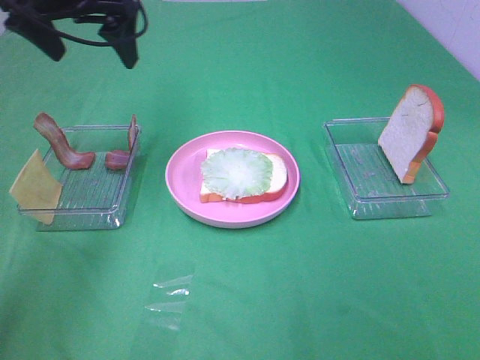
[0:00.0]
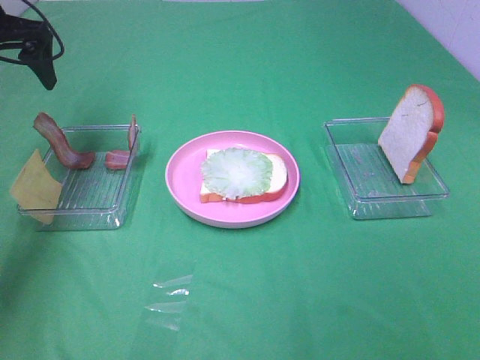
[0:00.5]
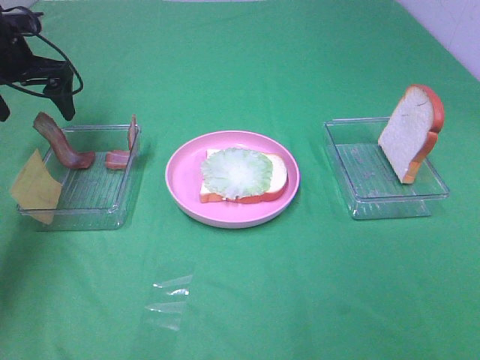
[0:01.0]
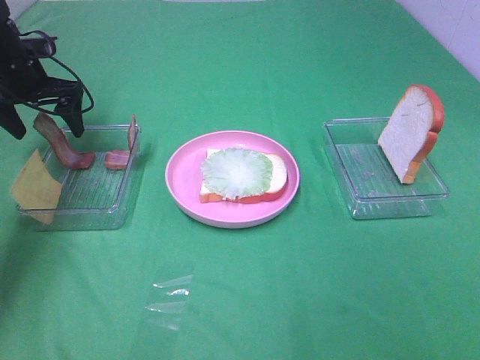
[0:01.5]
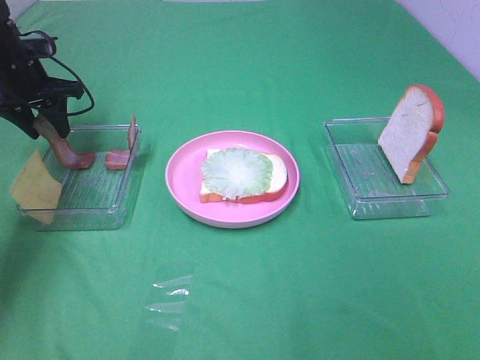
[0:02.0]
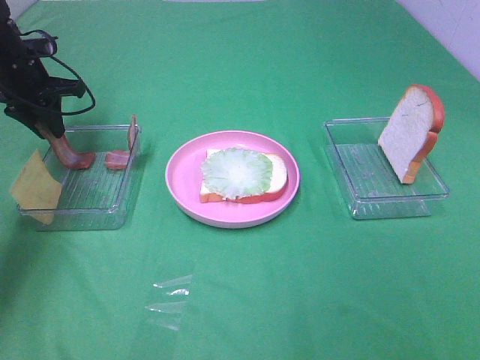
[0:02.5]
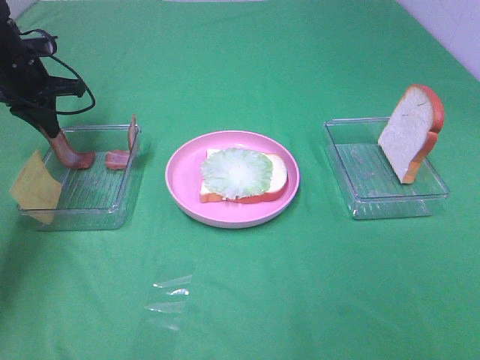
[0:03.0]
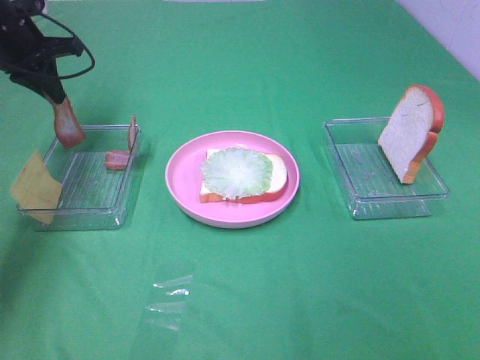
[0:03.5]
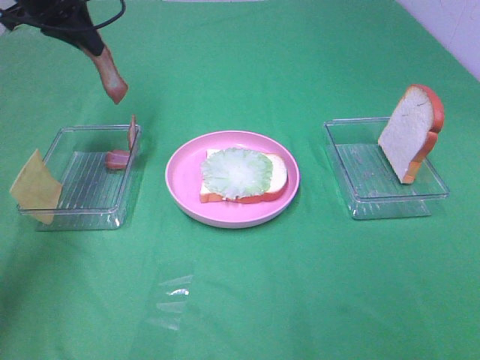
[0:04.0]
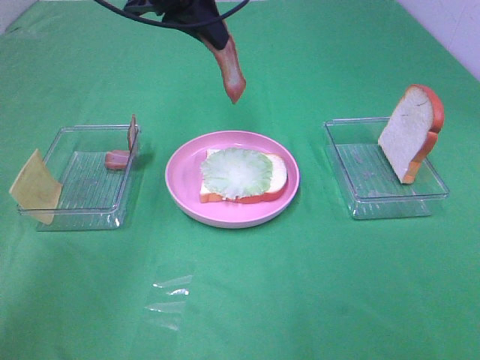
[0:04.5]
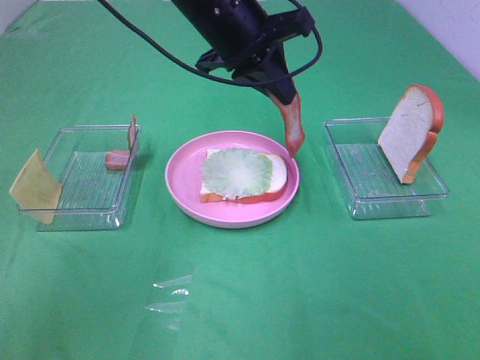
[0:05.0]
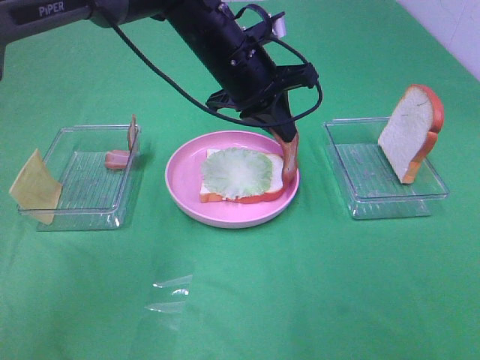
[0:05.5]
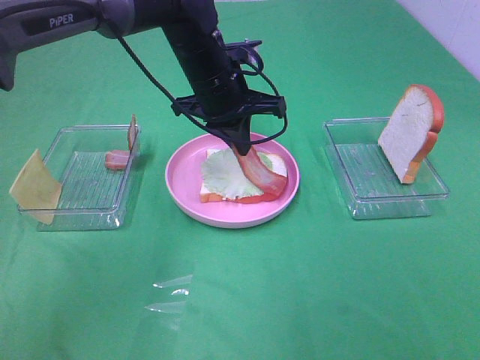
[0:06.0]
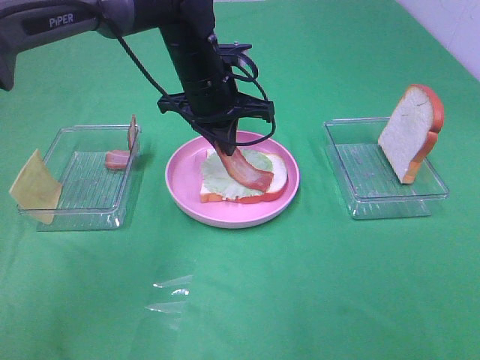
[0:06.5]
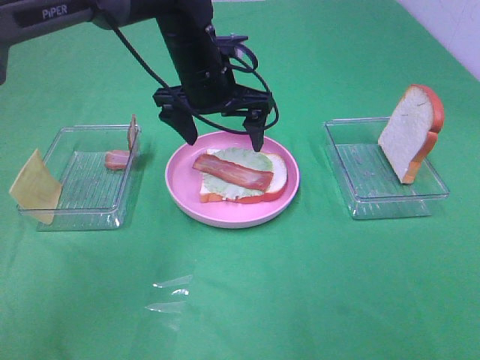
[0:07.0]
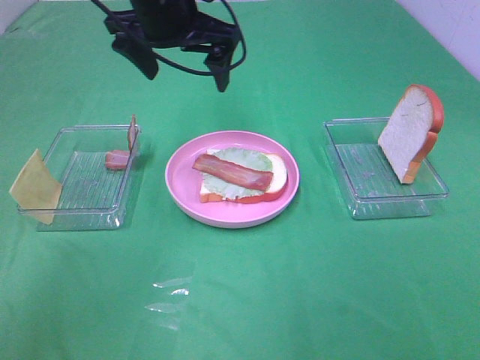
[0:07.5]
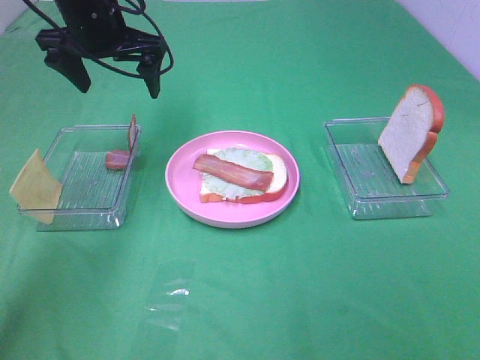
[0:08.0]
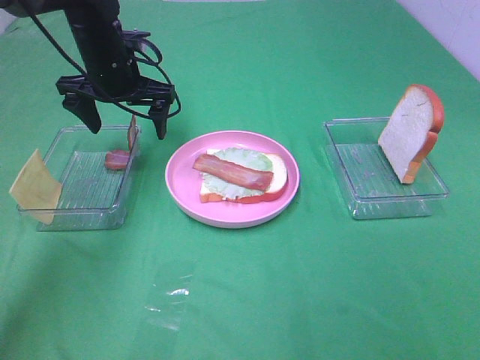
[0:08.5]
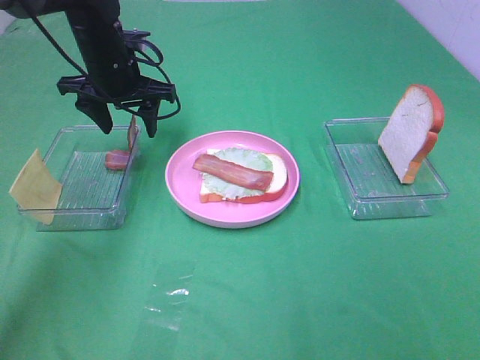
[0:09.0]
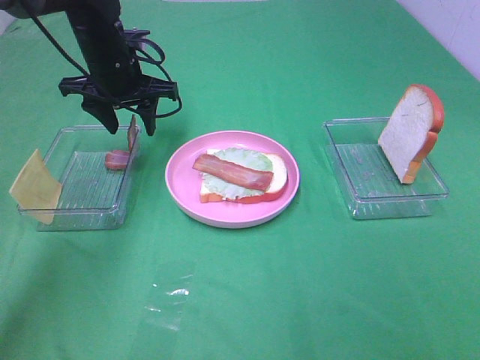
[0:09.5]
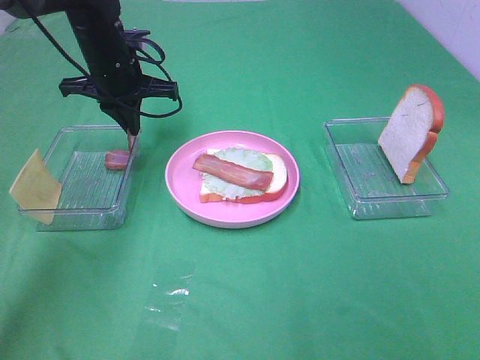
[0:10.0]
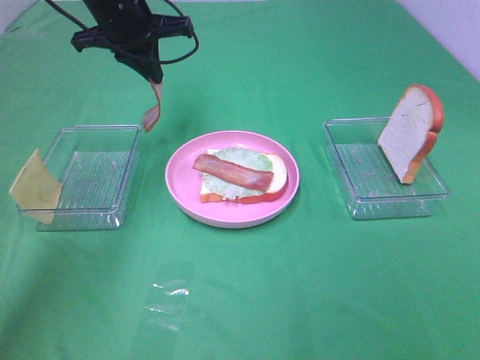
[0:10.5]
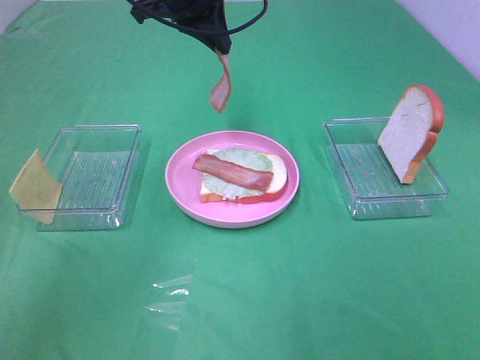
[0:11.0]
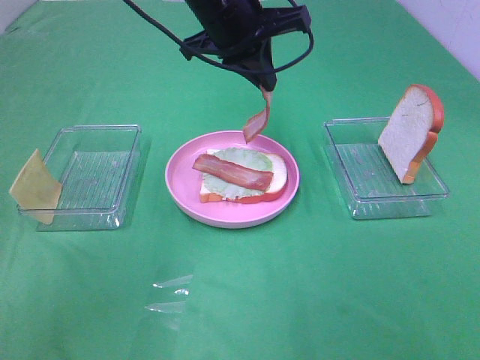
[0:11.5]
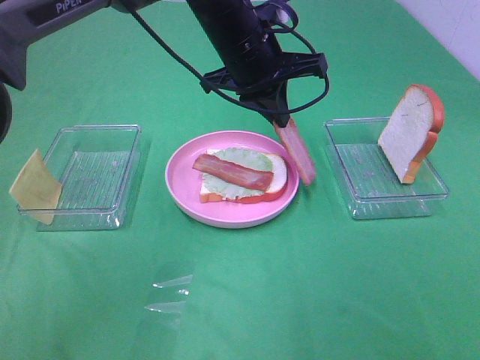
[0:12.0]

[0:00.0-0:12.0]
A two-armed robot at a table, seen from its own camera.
Task of the whole recording: Make sandwiches.
Step, 0:00.0 to 0:03.0: Left hand:grab the bacon.
Step, 0:03.5 to 0:06.5: Left hand:place bacon on lettuce slice.
Step, 0:07.0 to 0:10.0: Left hand:grab the bacon.
0:00.0 to 0:02.0: The left gripper is displaced downward, to the left and forward by some 20 cm, and closes.
0:02.0 to 0:04.0: The left gripper shifts roughly 15 cm upward and to the right, and closes.
0:04.0 to 0:06.0: The left gripper travels to the right and downward by approximately 25 cm.
0:06.0 to 0:08.0: The left gripper goes approximately 15 cm to the left and upward, and opens.
0:08.0 to 0:10.0: The left gripper is displaced downward by about 5 cm, and closes up.
0:10.0 to 0:12.0: The left gripper goes roughly 15 cm to the right.

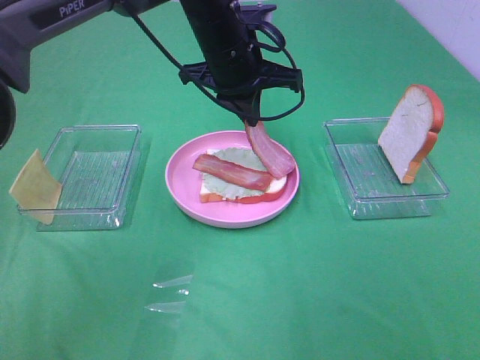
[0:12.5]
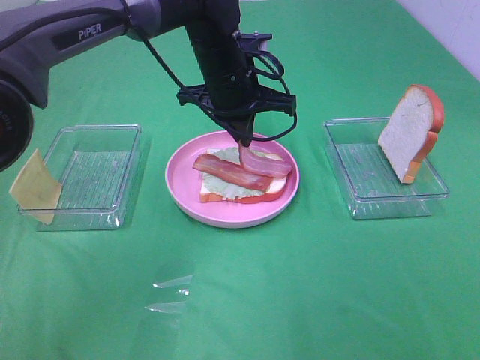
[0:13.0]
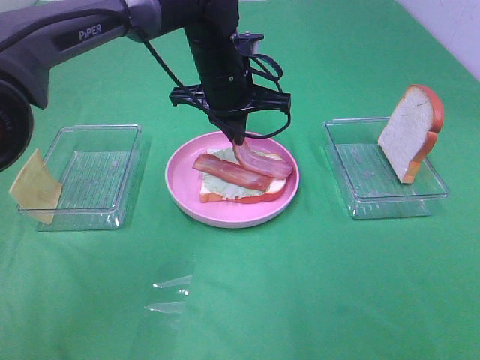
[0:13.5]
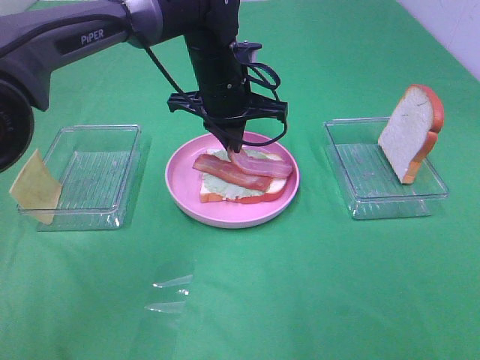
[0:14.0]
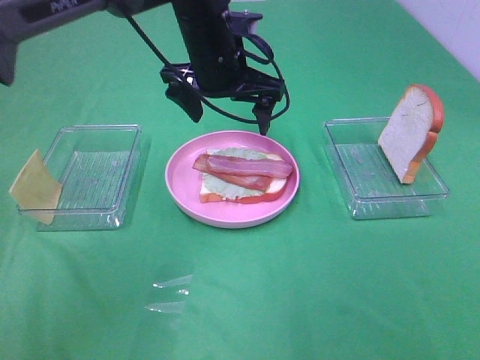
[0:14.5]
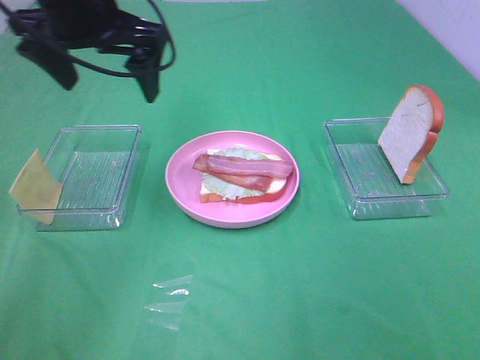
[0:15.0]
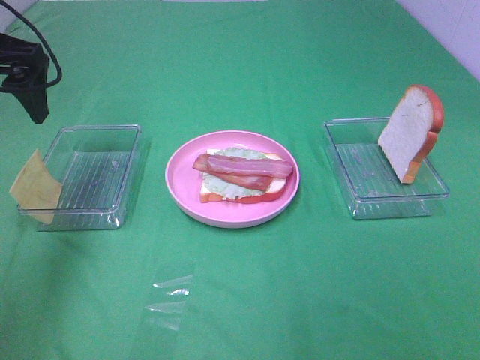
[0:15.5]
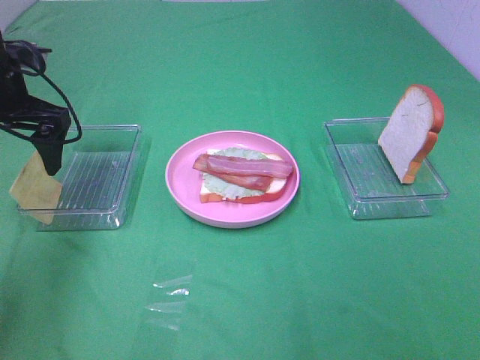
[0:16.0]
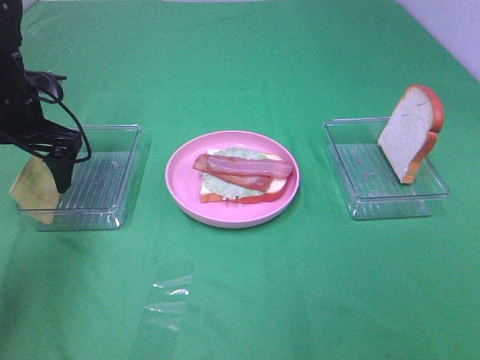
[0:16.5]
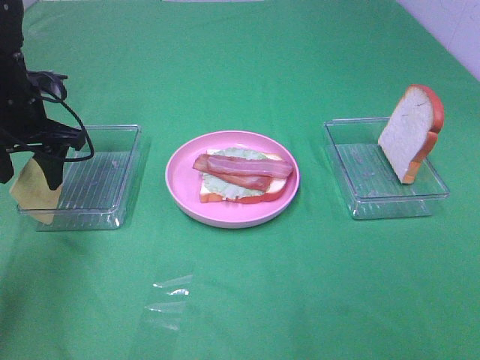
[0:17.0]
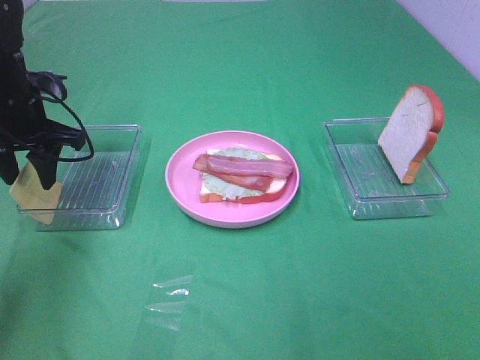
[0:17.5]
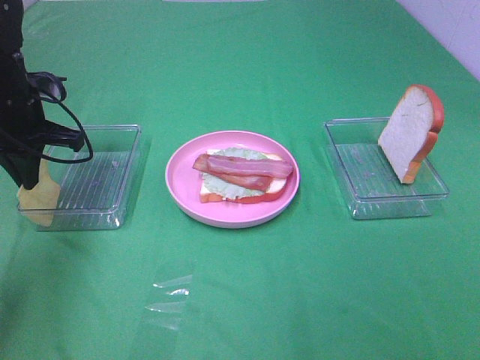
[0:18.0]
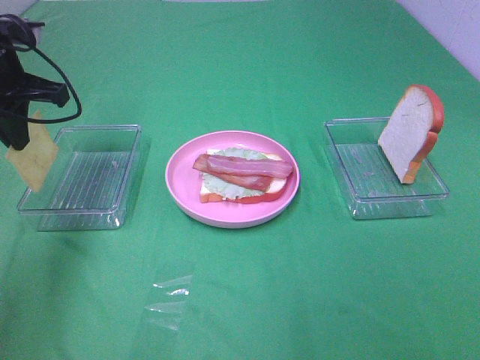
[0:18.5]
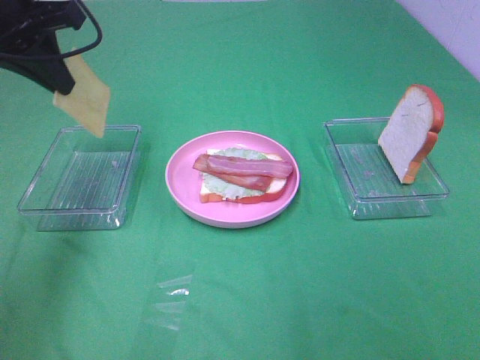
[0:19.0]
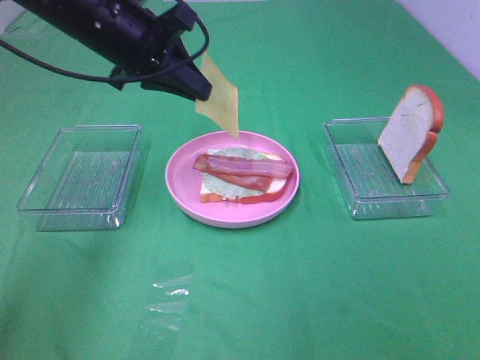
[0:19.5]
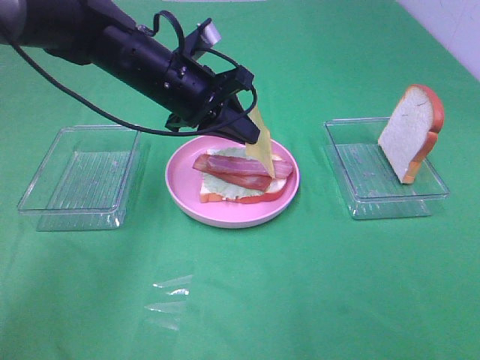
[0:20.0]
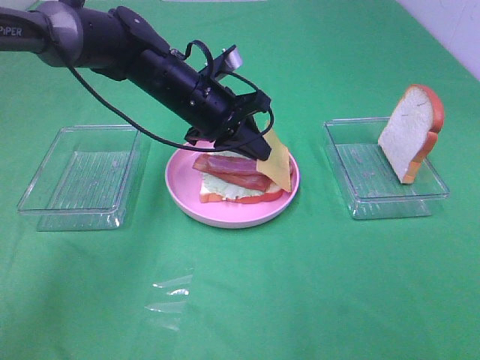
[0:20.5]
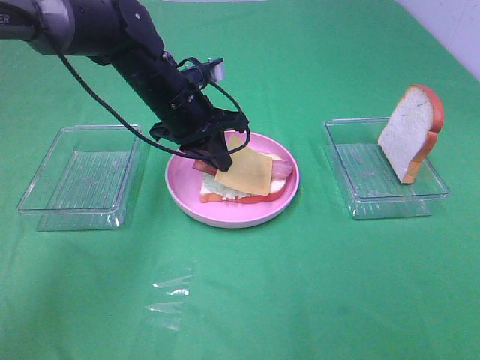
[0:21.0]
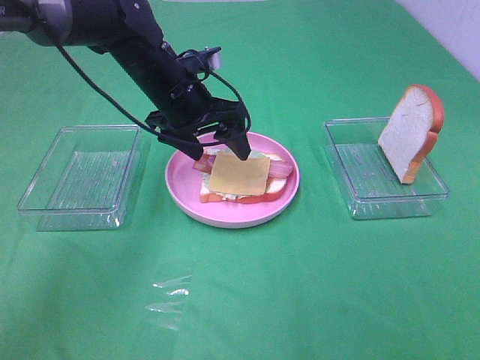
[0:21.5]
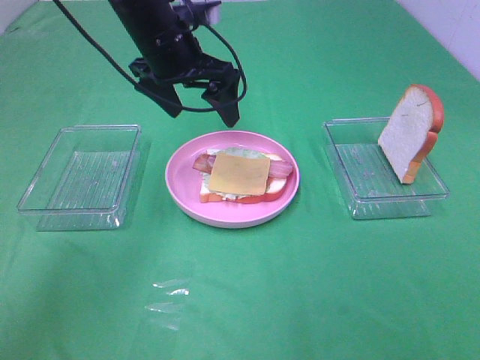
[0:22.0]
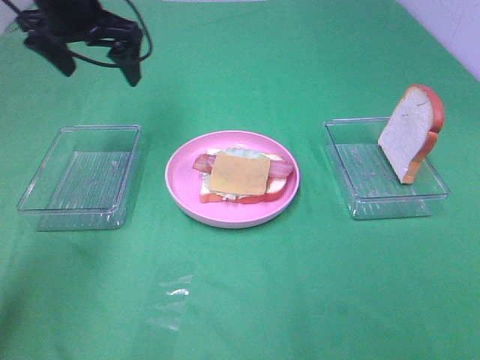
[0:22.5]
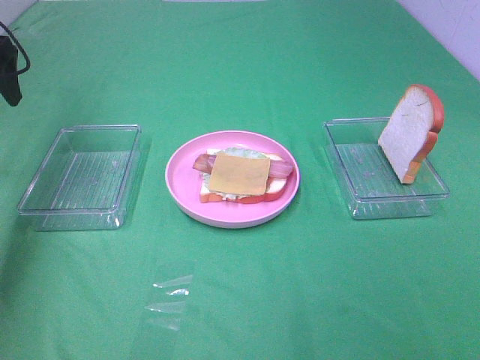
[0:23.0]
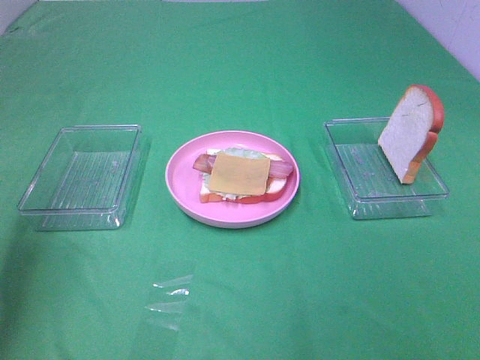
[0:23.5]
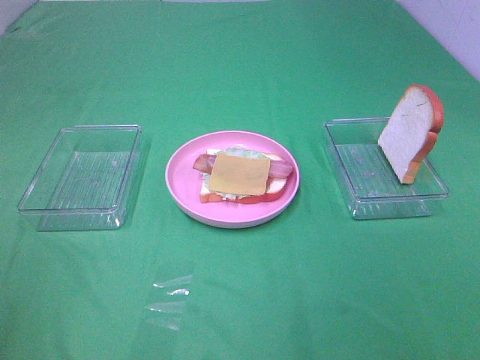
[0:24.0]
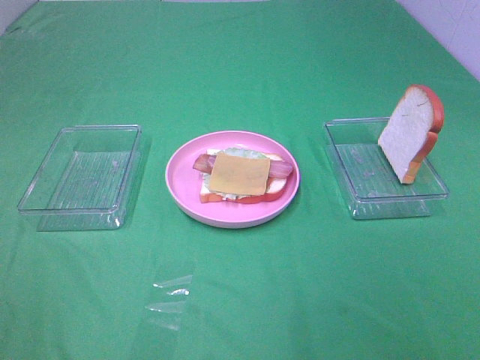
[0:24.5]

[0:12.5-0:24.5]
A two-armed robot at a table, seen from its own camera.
Task of the whole recording: Make sandwiches.
Step, 0:14.5 to 0:18.0: Left hand:grab the cheese slice.
Step, 0:18.5 to 0:21.5: Left hand:place the cheese slice on top of the bacon.
0:12.5 to 0:14.5: The left gripper opens its fingers.
0:14.5 to 0:16.5: The left gripper is displaced to the left by approximately 25 cm.
0:16.5 to 0:18.5: The left gripper is displaced upward by some 5 cm, and closes up.
0:18.5 to 0:20.5: The left gripper shifts some 20 cm to the right and downward.
0:20.5 to 0:22.5: The left gripper is displaced to the left and upward by about 20 cm, and opens its fingers.
0:22.5 to 0:24.5: The left gripper travels backward by roughly 50 cm.

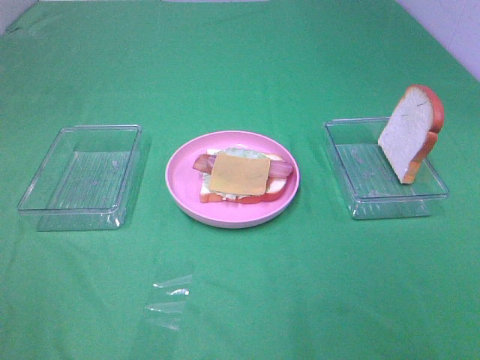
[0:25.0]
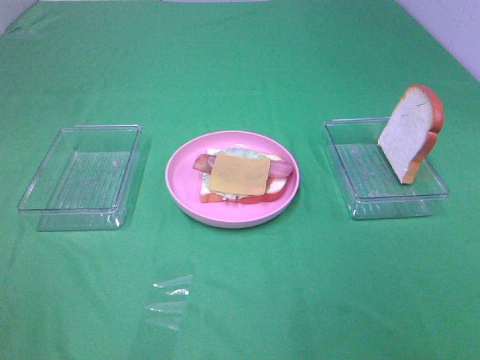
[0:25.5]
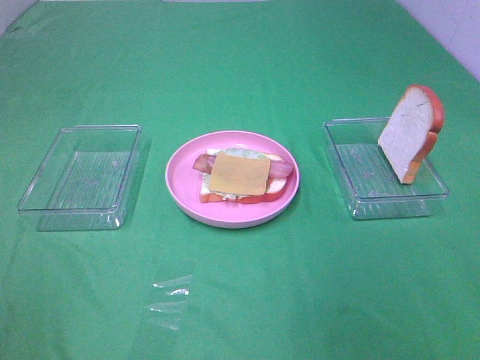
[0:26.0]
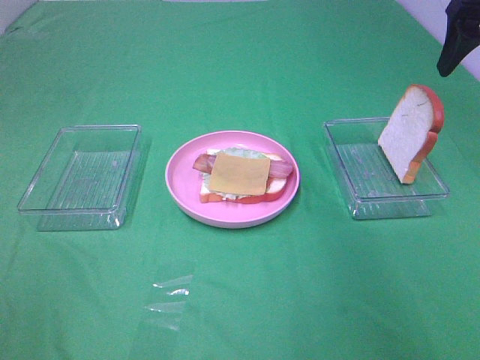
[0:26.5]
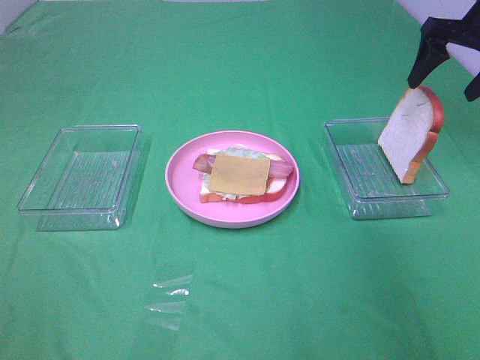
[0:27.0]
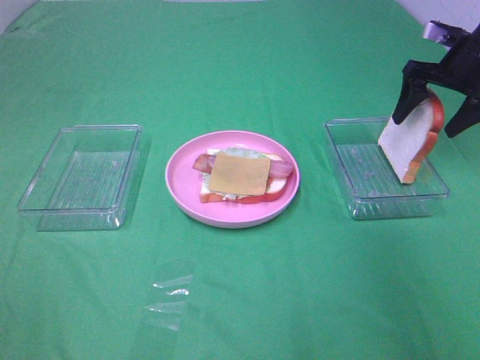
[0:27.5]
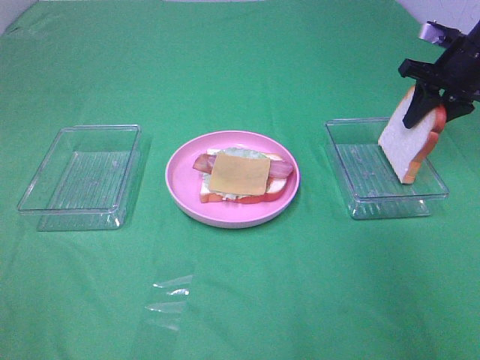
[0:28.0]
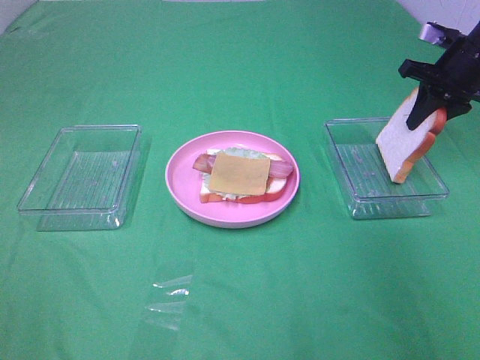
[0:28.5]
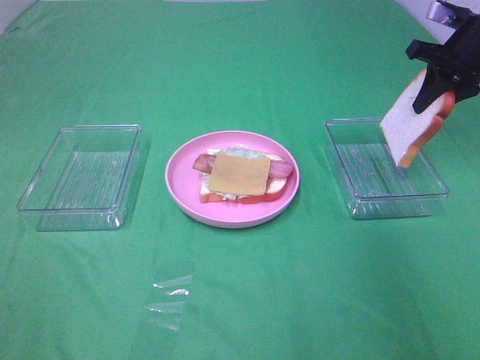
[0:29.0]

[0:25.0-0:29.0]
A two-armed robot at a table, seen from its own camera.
Task of the whole recording: Make sandwiches.
Step, 0:25.0 to 0:28.0: Right hand:grab the bread slice.
0:25.0 to 0:27.0: The right gripper travels forward by some 50 cm.
0:27.0 to 0:29.0: The right gripper closes its fingers.
